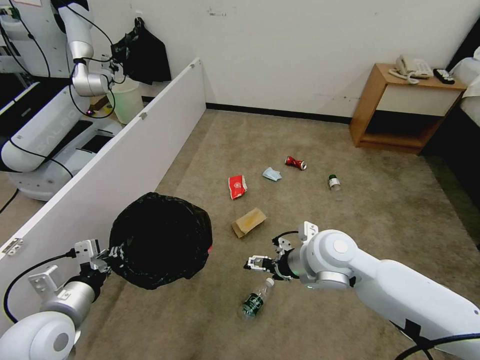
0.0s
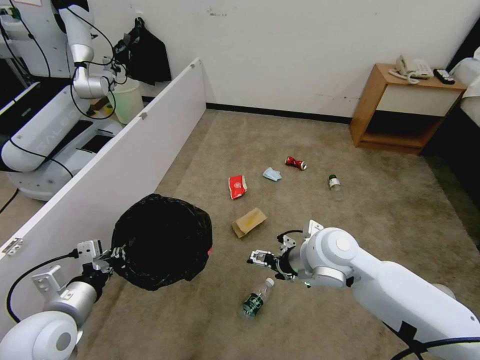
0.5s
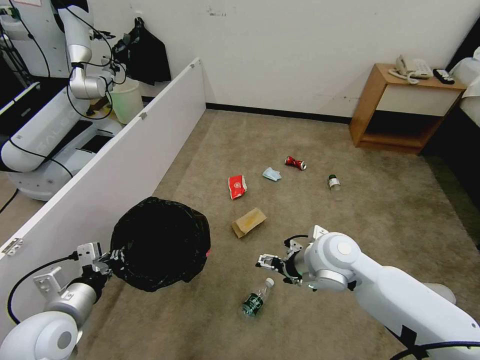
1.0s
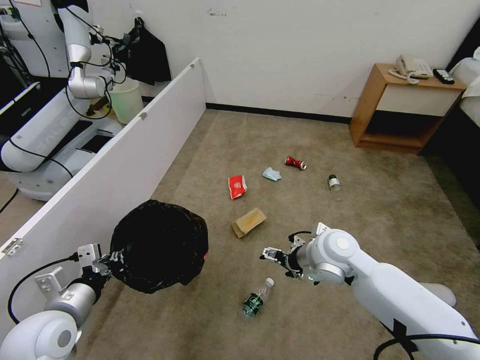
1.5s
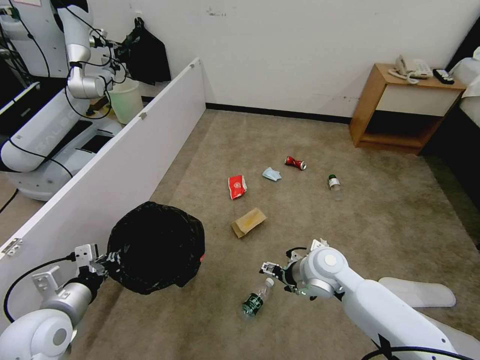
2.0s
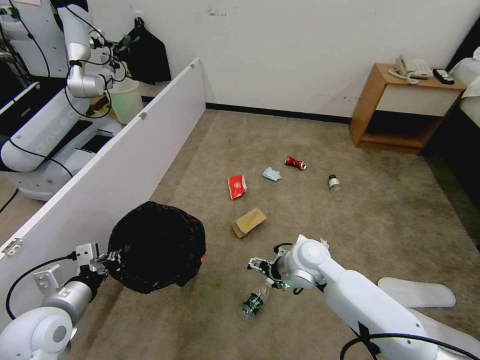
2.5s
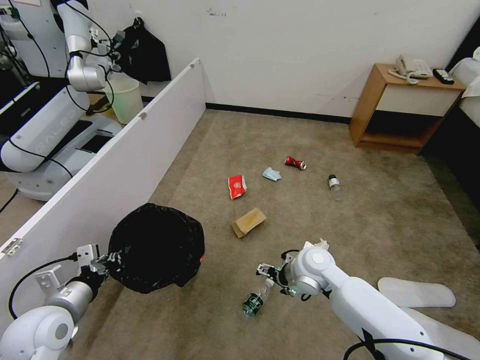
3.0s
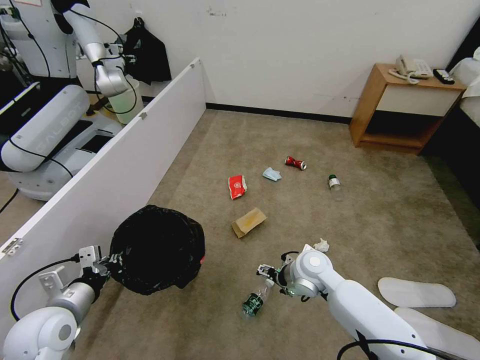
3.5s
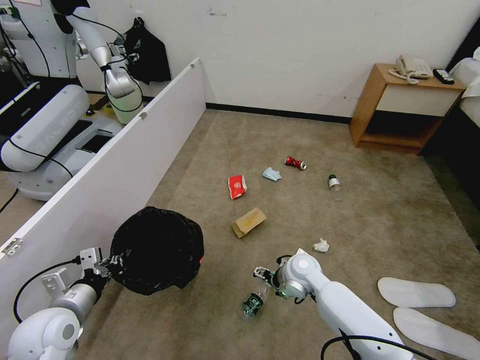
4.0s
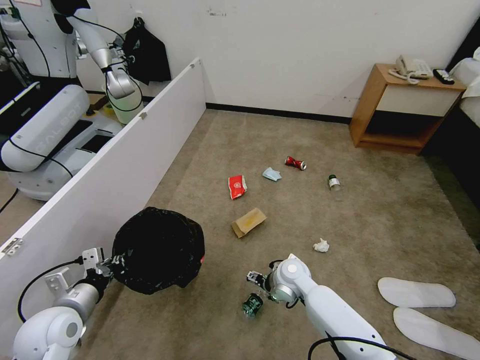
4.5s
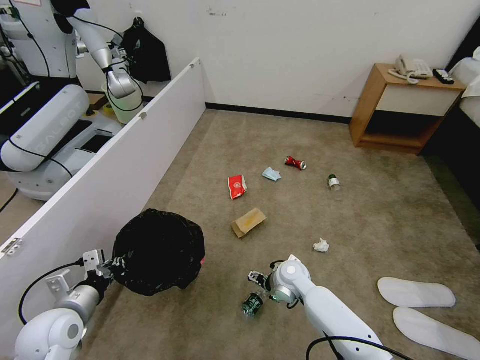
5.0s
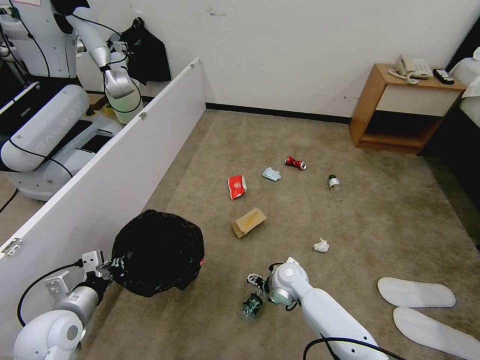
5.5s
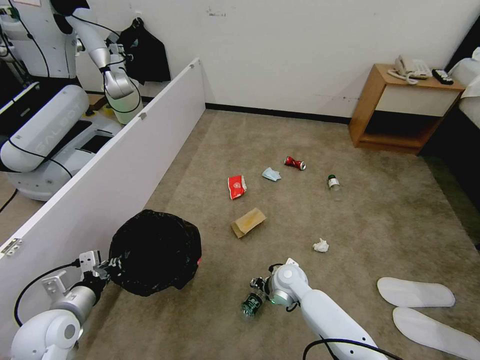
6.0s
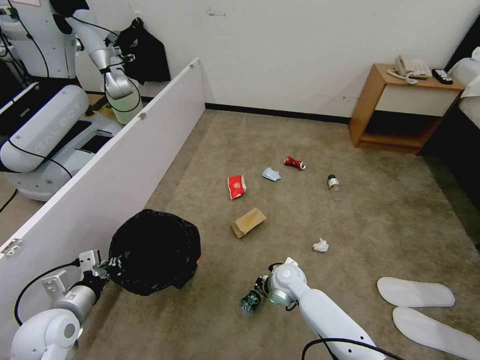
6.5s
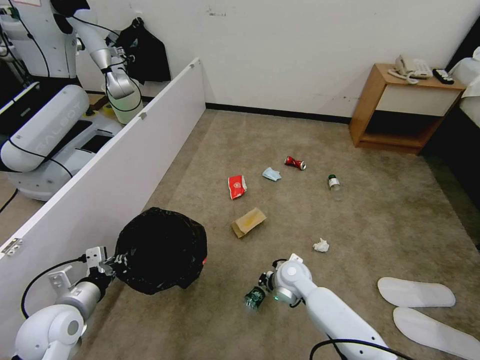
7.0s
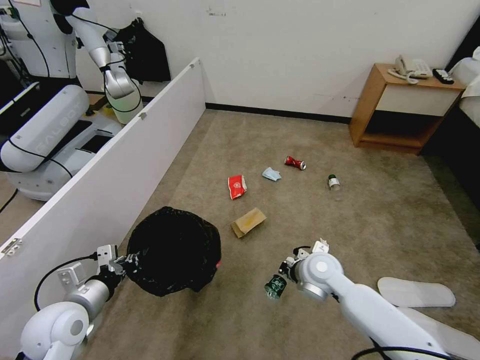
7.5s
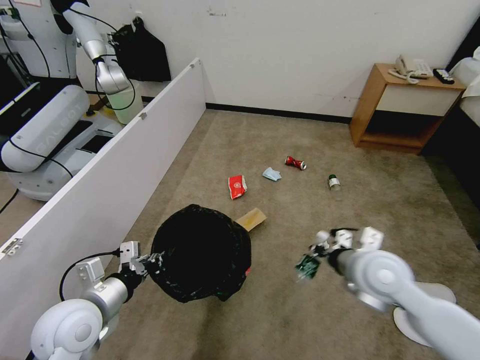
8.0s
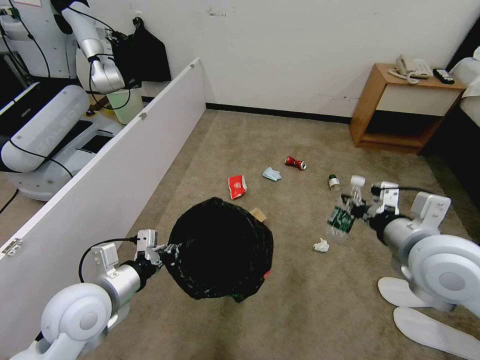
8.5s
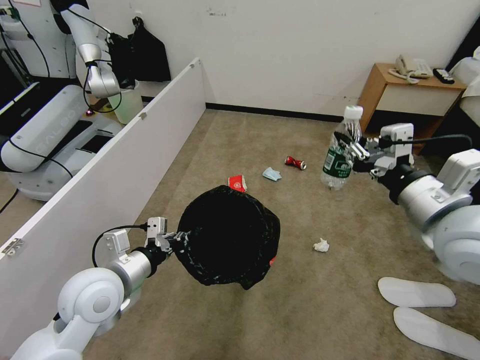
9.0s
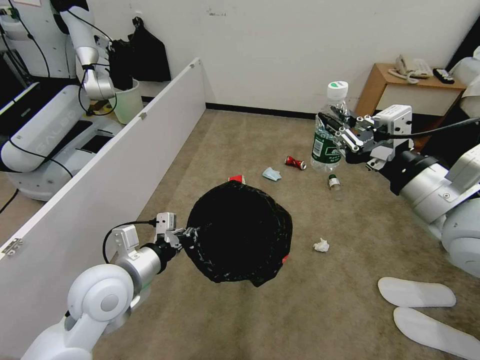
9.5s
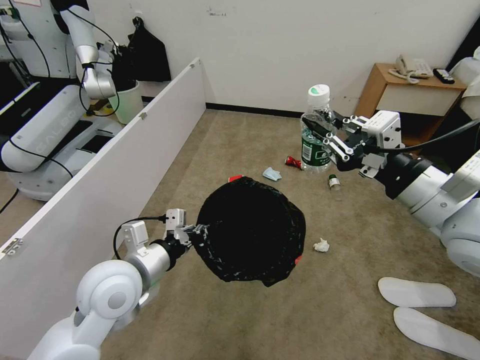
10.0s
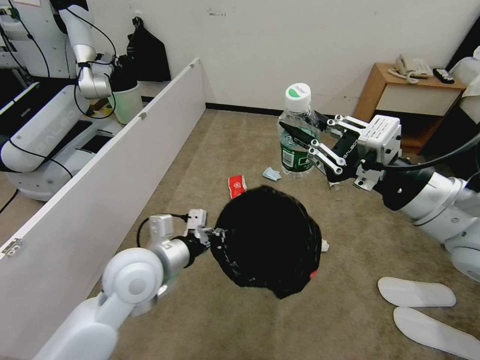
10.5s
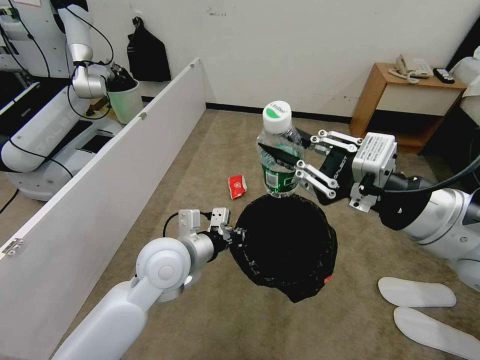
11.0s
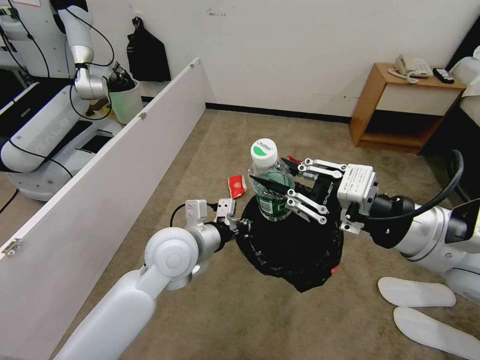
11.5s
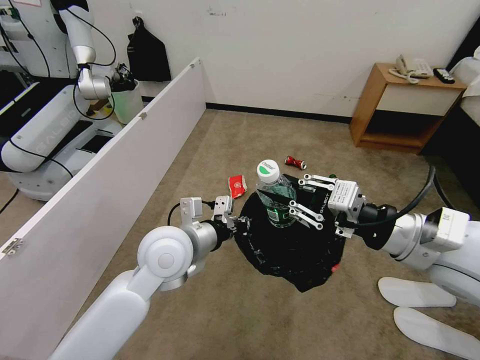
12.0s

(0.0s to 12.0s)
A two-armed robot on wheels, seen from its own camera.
Task of the whole recording: Pick up the trash bin and place the garbage on the floor into it.
0.0s - 2.0s: The right gripper heads downward, covering some 5 cm.
2.0s - 4.0s: The right gripper moves downward, roughly 10 cm.
4.0s - 6.0s: The right gripper goes approximately 5 cm downward, and closes up.
6.0s - 8.0s: The right gripper is displaced upward and to the right by about 25 cm, and closes. Meanwhile the left gripper heads to the right and upward, covering some 10 cm.
8.0s - 10.0s: The right gripper goes about 20 cm upward; the left gripper shifts approximately 10 cm to the right and upward.
10.0s - 12.0s: The left gripper shifts roughly 10 cm to the right and forward.

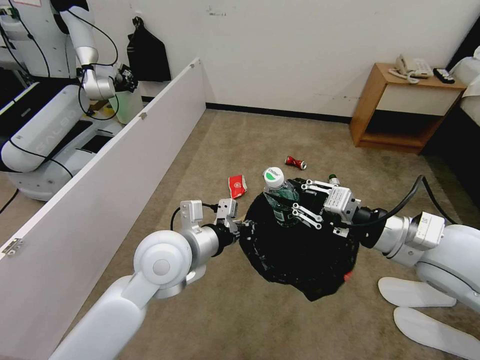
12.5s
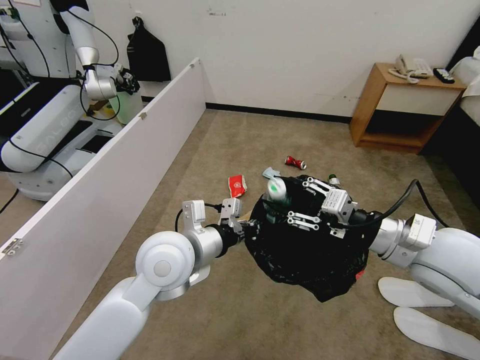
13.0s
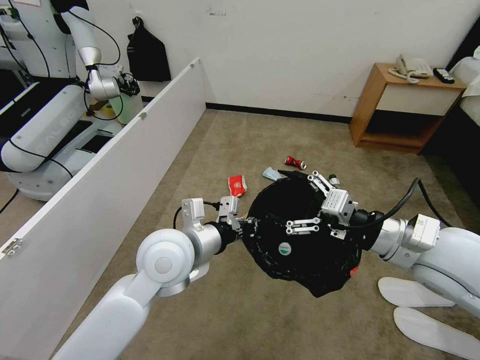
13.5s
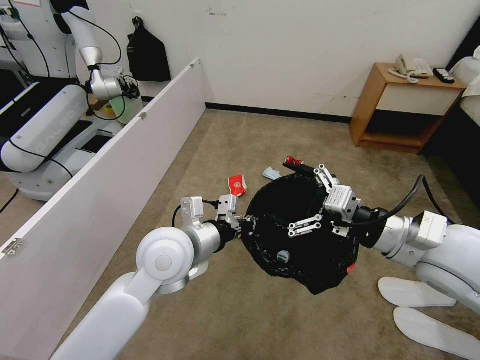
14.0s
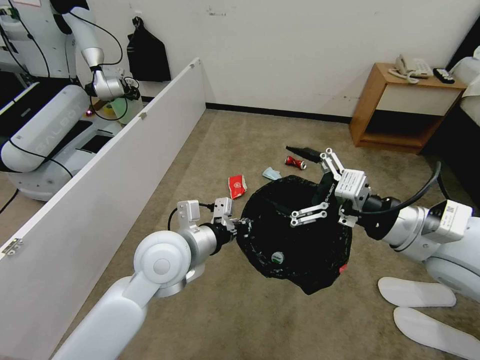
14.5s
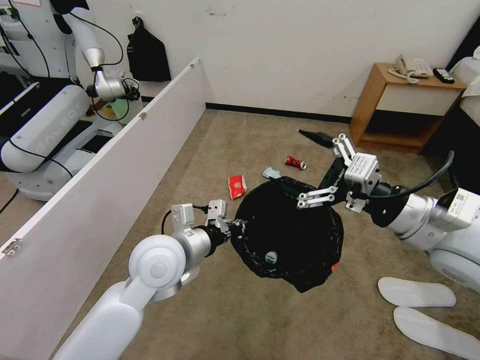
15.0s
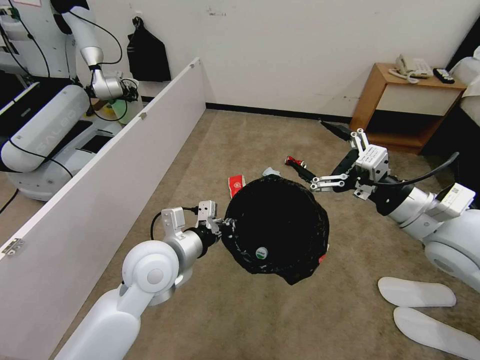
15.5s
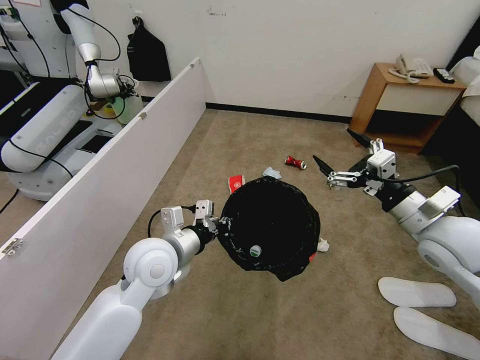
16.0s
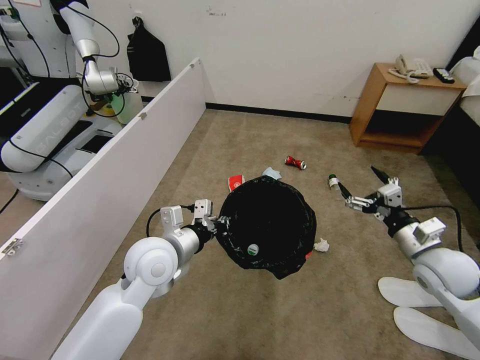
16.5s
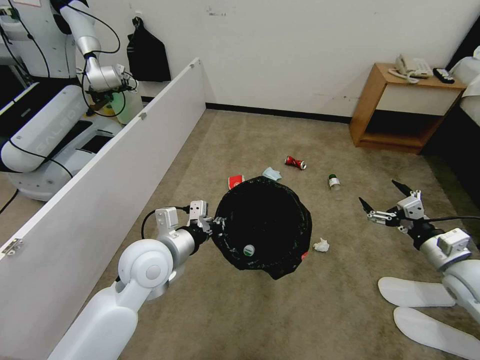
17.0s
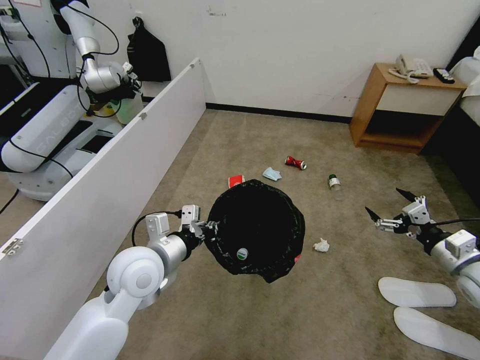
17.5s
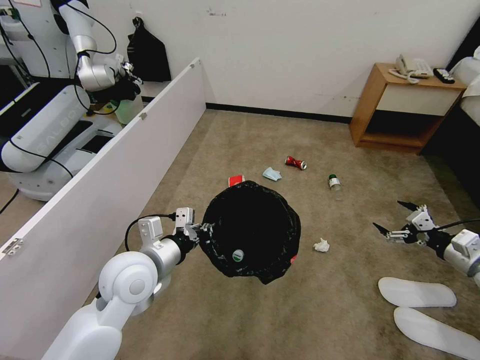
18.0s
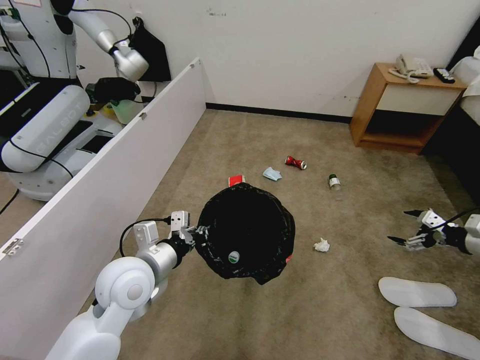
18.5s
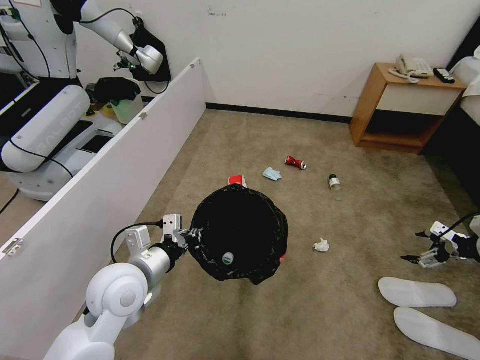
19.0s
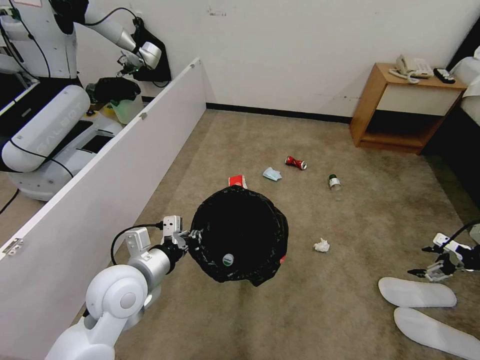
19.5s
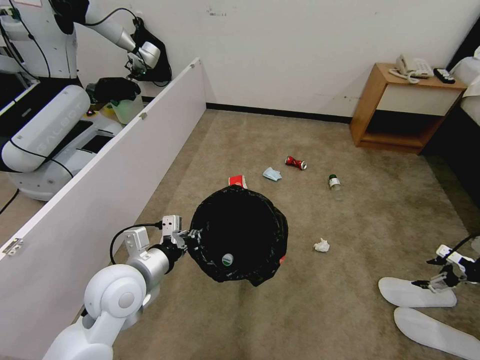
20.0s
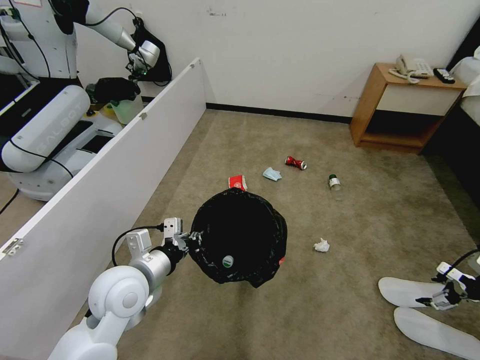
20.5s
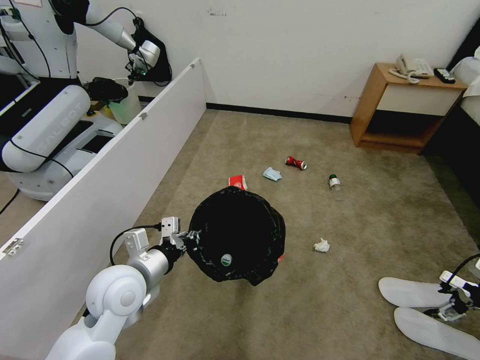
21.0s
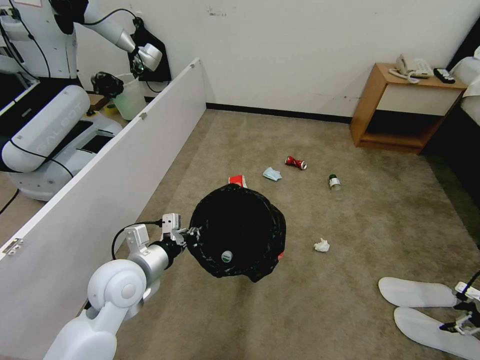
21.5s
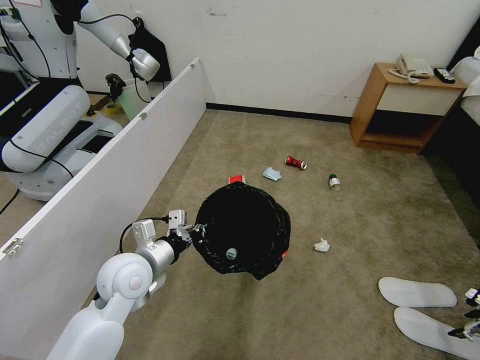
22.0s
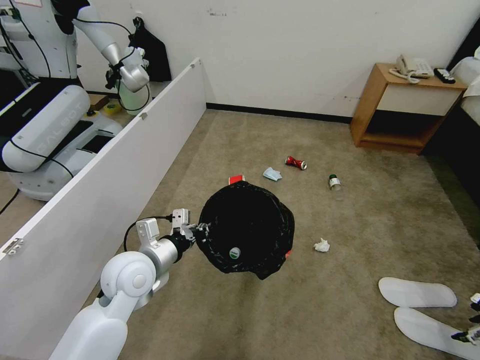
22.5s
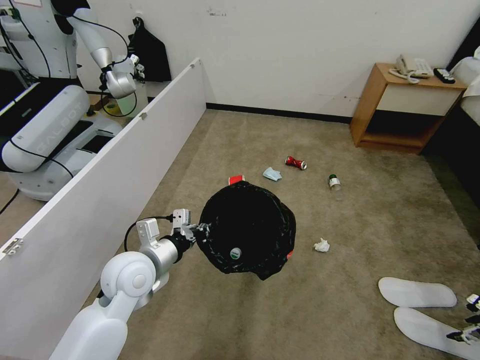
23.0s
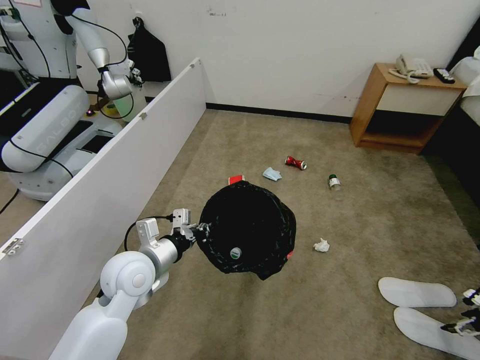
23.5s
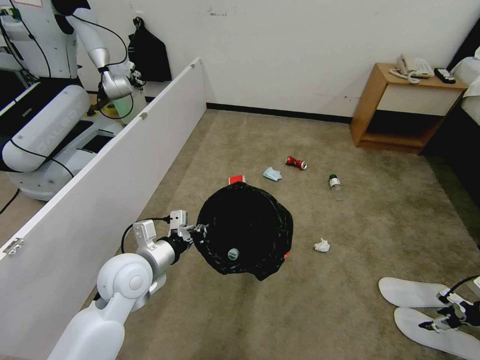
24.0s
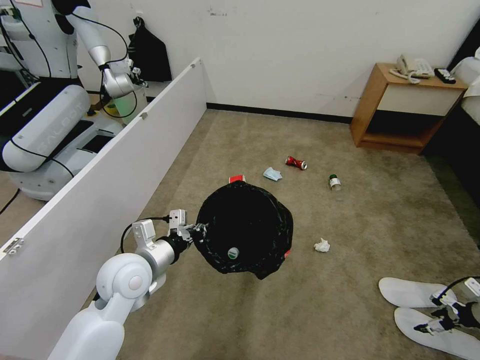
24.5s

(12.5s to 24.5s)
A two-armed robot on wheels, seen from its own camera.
Task of the whole recording: Pick up the trash bin and place the garbage on the floor into it.
12.5s - 14.5s: The right gripper opens up.
14.5s - 16.5s: The right gripper goes roughly 20 cm downward and to the right.
16.5s - 18.5s: The right gripper travels to the right by some 20 cm; the left gripper changes place by approximately 5 cm.
18.5s - 20.5s: The right gripper shifts by approximately 5 cm.
20.5s - 22.5s: The right gripper travels to the right by approximately 10 cm.
22.5s - 24.5s: The right gripper moves downward, approximately 5 cm.

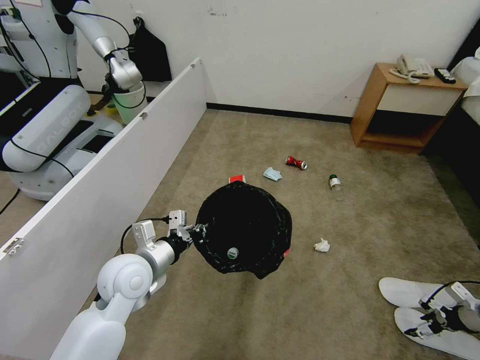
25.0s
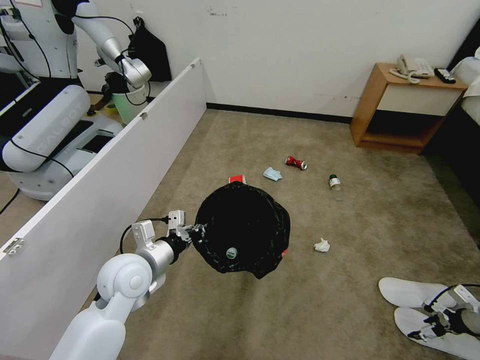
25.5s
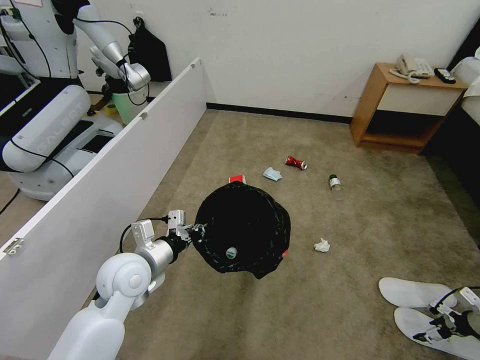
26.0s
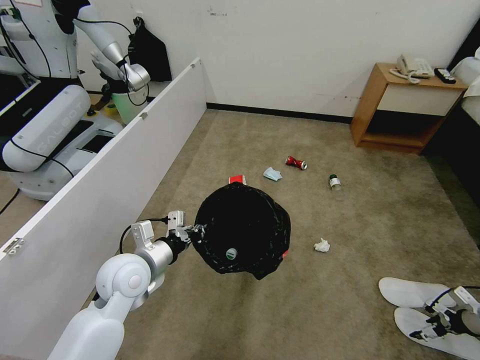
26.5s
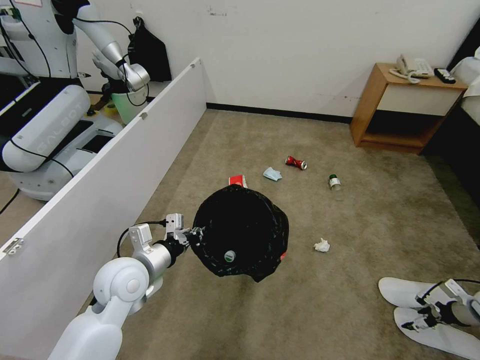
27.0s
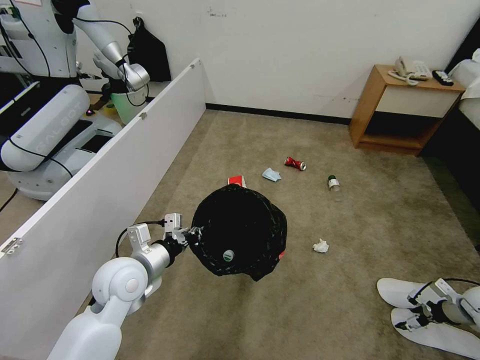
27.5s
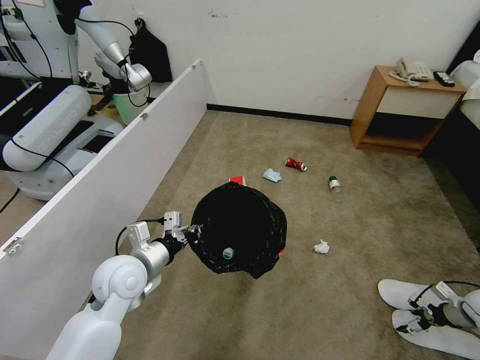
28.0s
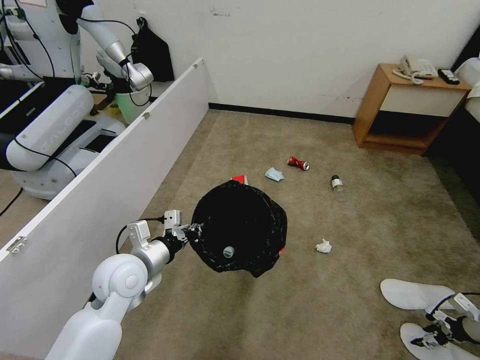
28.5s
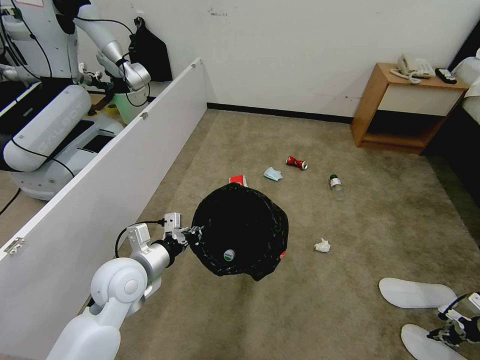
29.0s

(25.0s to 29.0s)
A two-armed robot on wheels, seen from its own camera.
Task of the whole recording: Pick up the trash bin and place the garbage on the floor into it.
25.0s - 27.0s: The grippers make only small movements.
27.0s - 29.0s: The right gripper changes place by about 5 cm, and closes up.
